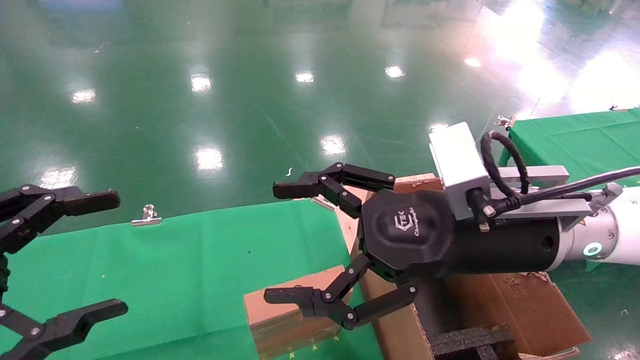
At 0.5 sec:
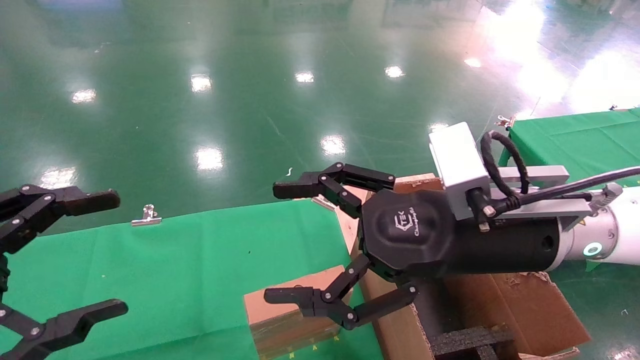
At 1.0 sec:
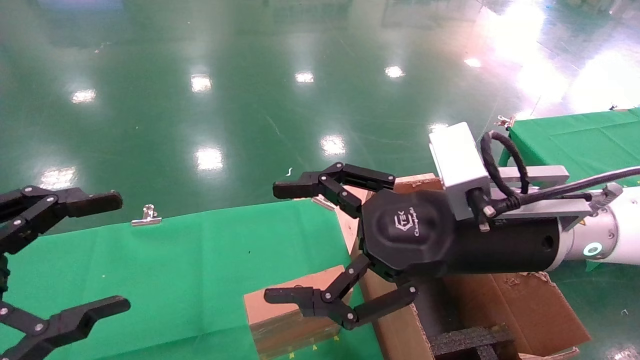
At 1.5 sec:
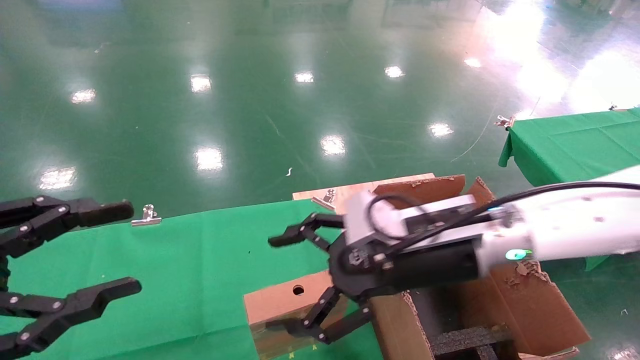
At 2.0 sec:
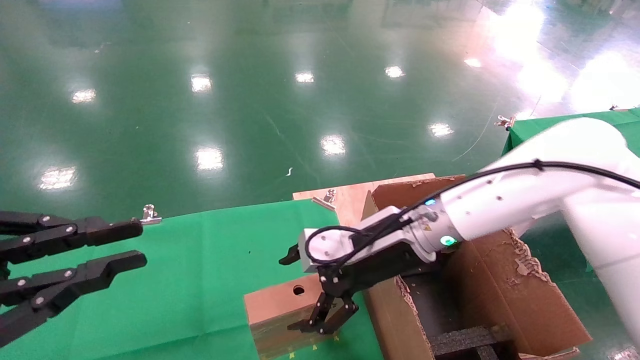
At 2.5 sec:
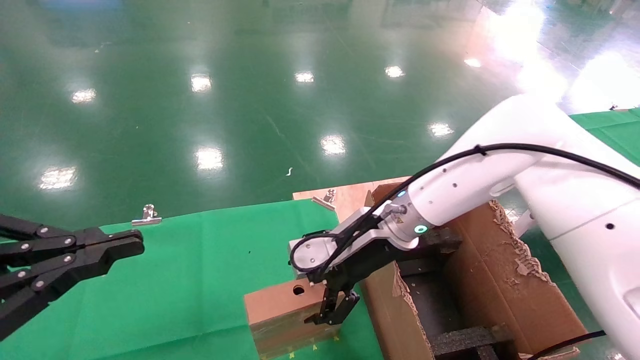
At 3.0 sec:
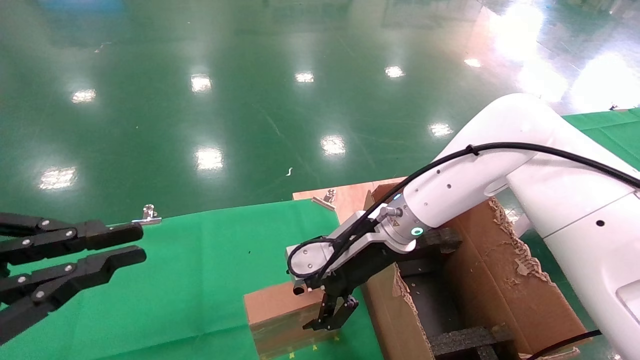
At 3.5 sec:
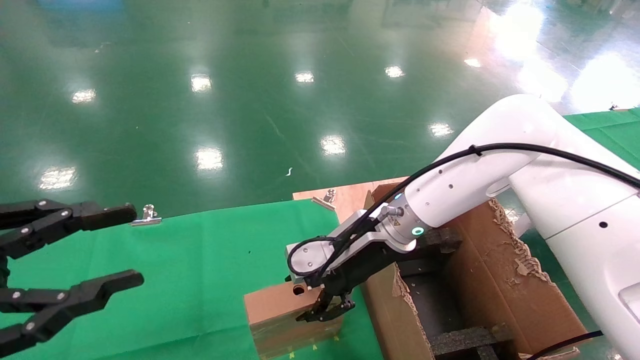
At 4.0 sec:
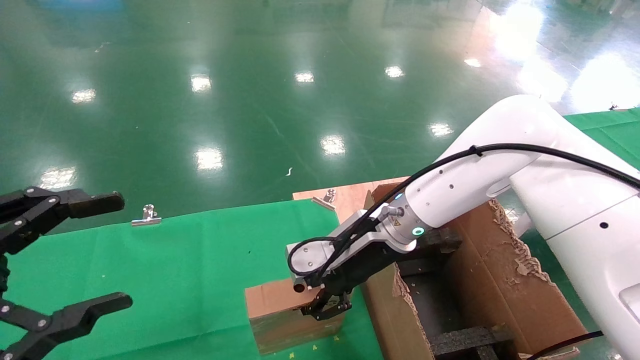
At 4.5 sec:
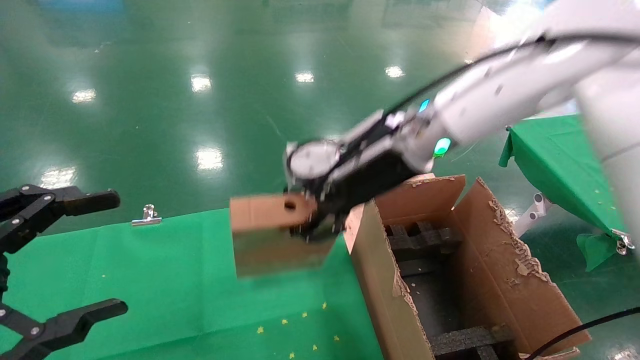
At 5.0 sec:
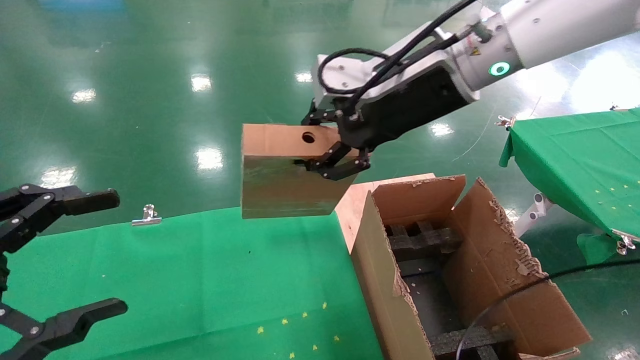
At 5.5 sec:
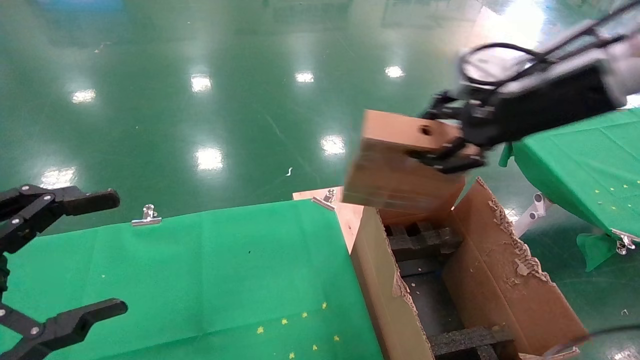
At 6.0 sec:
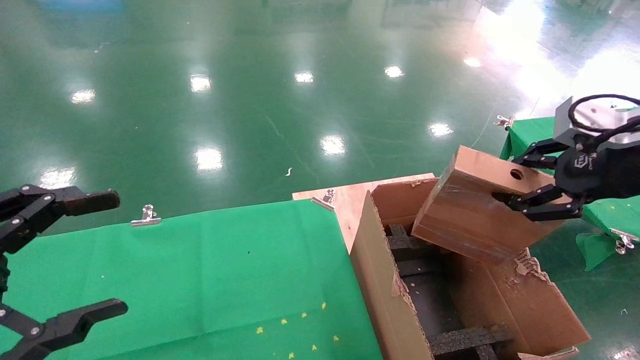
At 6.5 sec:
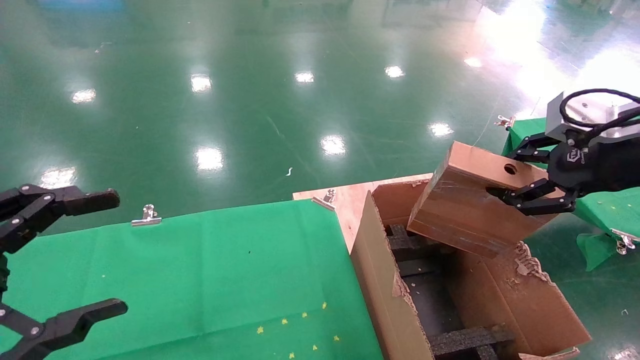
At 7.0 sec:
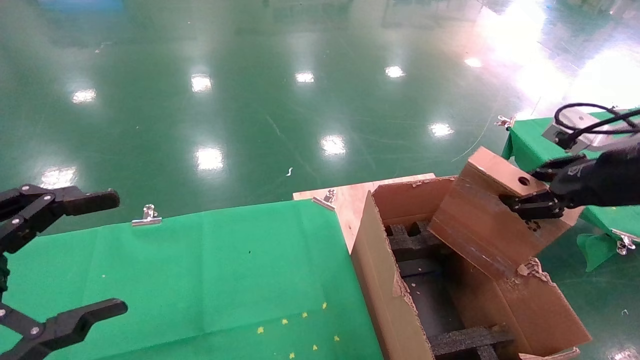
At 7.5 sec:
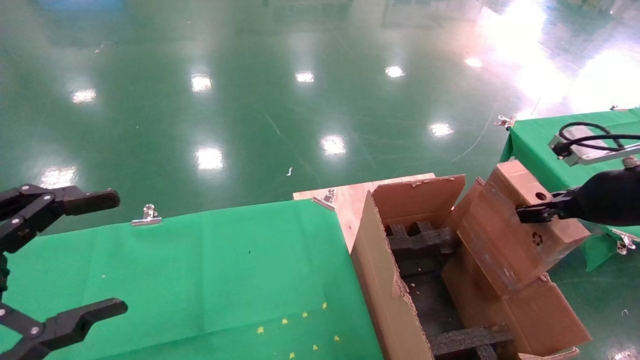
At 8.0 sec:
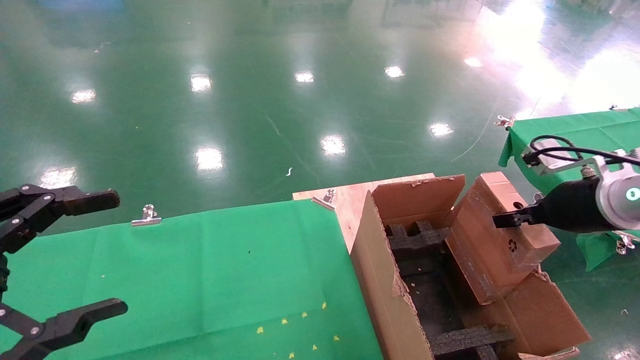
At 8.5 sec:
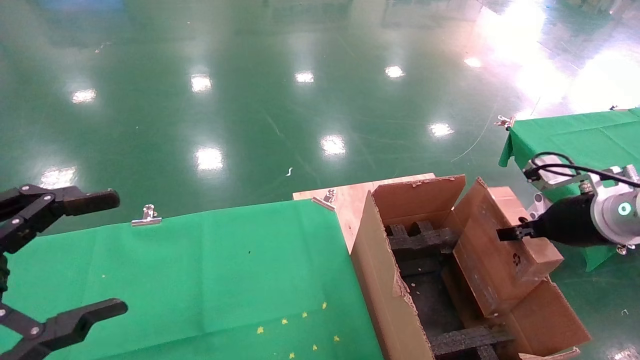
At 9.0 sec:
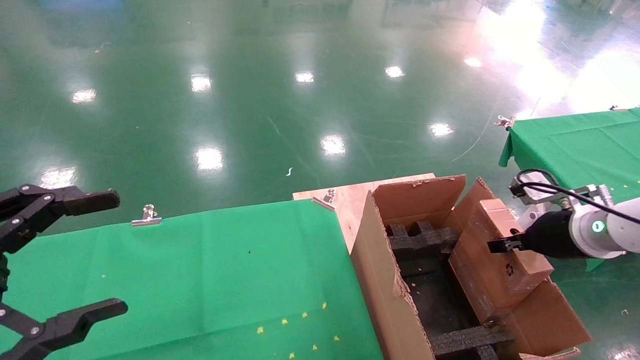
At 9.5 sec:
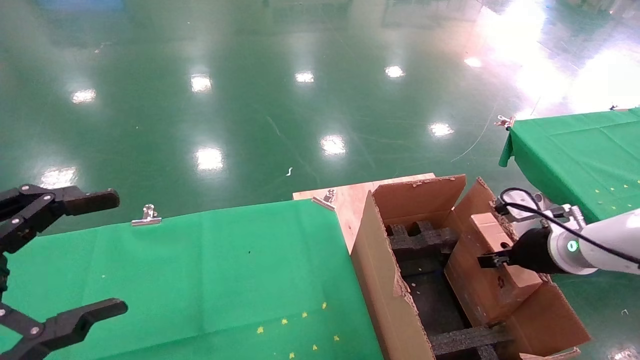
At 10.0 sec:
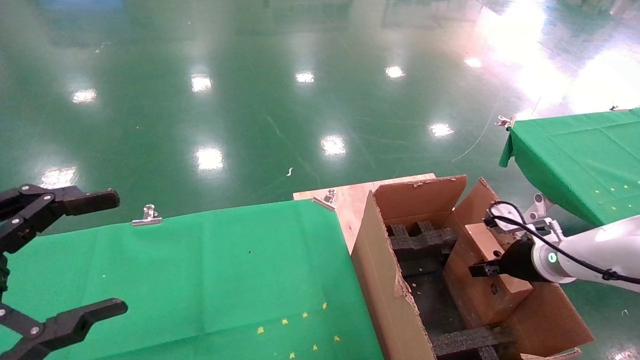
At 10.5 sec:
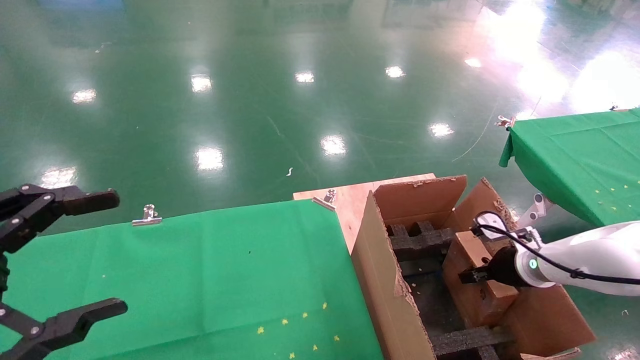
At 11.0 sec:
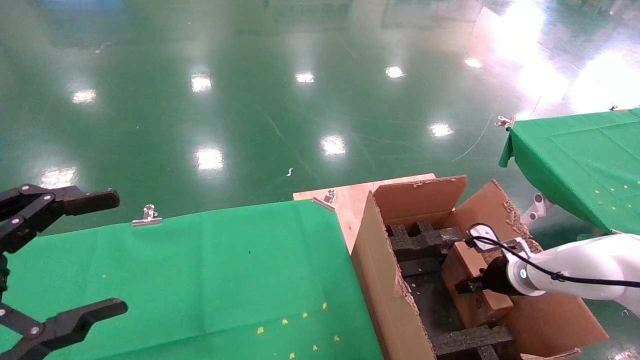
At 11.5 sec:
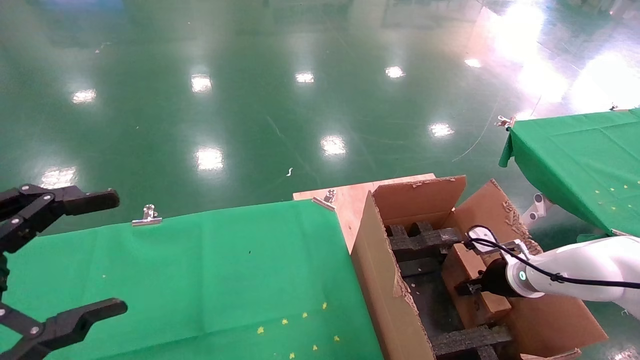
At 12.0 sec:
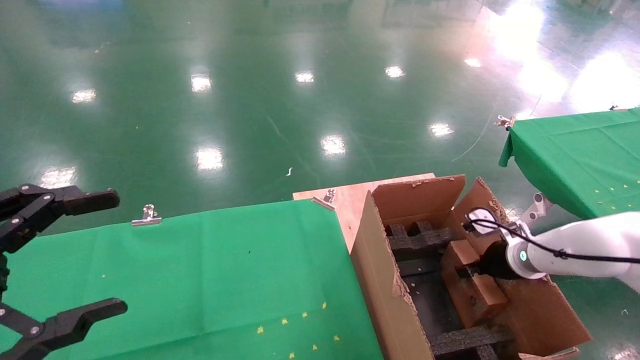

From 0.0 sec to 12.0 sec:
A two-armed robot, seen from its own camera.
Task of the whole recording: using a robotic arm to pick up a cardboard box and palace it the carton.
Step, from 1.5 sec to 3.5 sec: Pick up the mouse and the power cord paper box.
From 0.0 sec to 2.0 sec: The left gripper closes its fingers; the right gripper goes about 15 cm forward and downward.
From 2.0 sec to 4.0 sec: The right gripper closes. The left gripper opens.
From 4.0 sec to 6.0 sec: The right gripper shifts roughly 35 cm to the right, backward and upward.
From 6.0 sec to 8.0 sec: The right gripper moves downward and forward, roughly 10 cm.
From 8.0 sec to 10.0 sec: The right gripper is displaced downward and forward by approximately 15 cm.
From 10.0 sec to 12.0 sec: The right gripper changes place by some 5 cm.

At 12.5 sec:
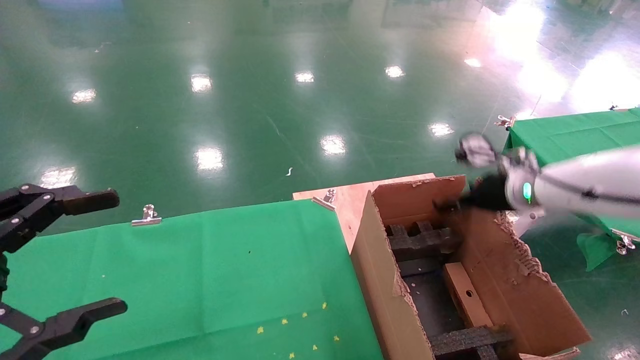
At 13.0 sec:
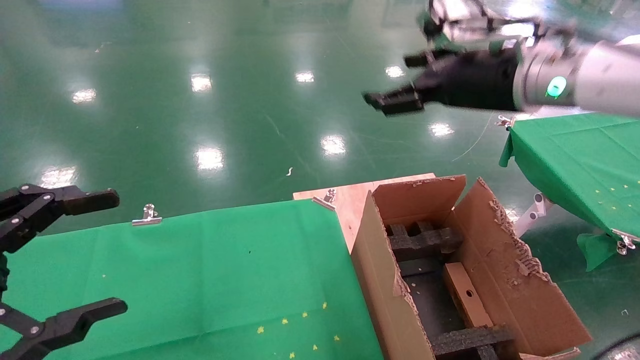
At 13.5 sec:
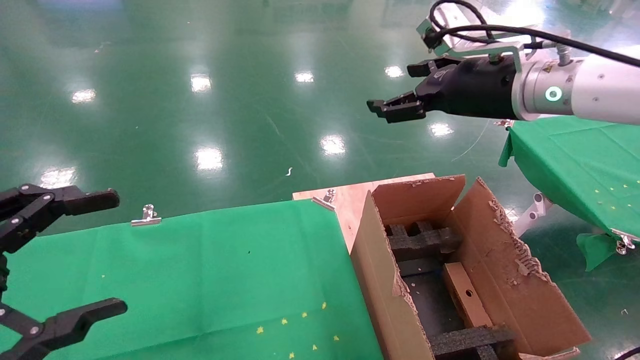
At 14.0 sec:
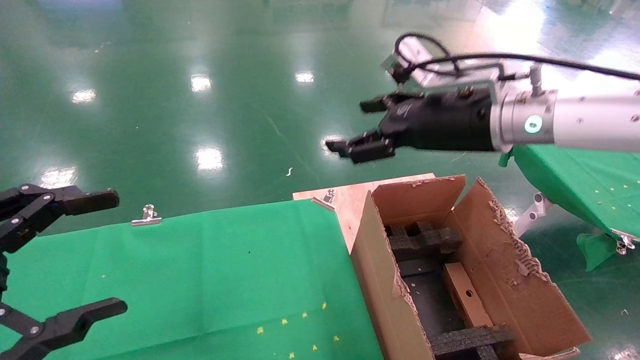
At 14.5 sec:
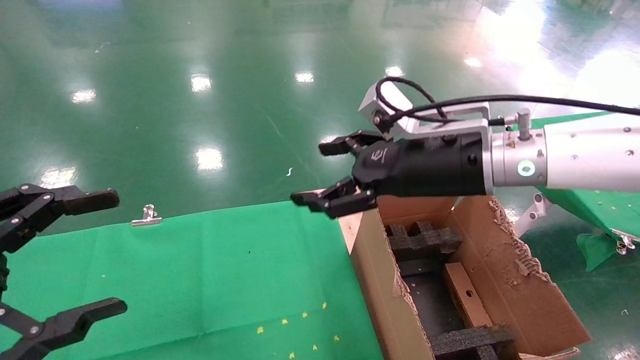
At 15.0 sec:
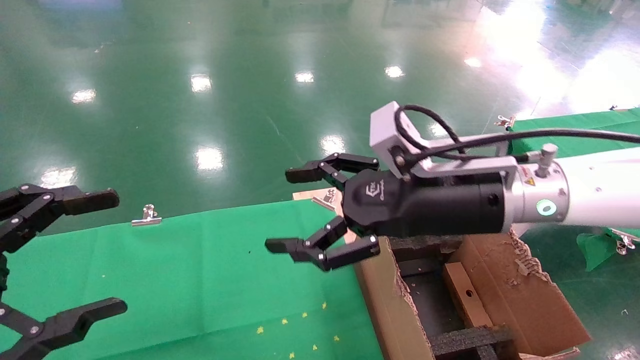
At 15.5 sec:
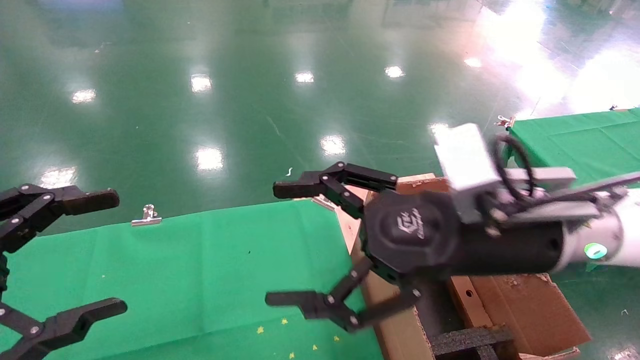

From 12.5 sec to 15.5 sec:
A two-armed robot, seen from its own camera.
Task of the whole recording: using a robotic arm to pick up a cardboard box and palace it the carton.
From 12.5 sec to 14.0 sec: The right gripper goes roughly 20 cm to the left, upward and backward.
From 14.0 sec to 15.5 sec: The right gripper moves backward and downward, about 10 cm.
